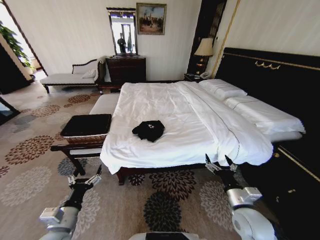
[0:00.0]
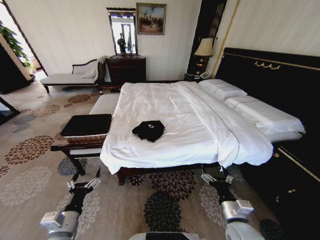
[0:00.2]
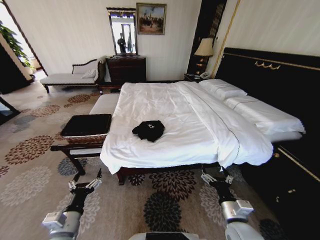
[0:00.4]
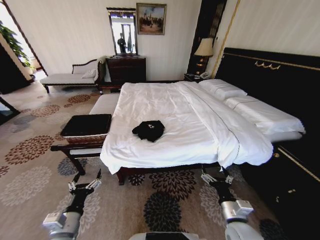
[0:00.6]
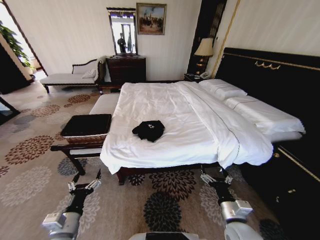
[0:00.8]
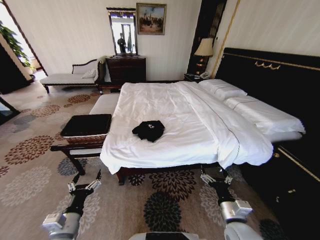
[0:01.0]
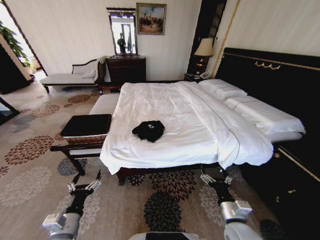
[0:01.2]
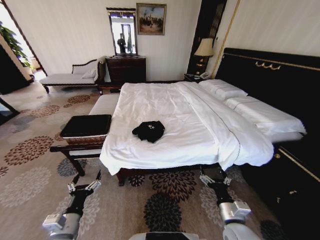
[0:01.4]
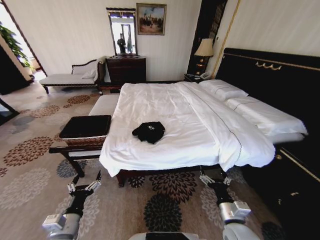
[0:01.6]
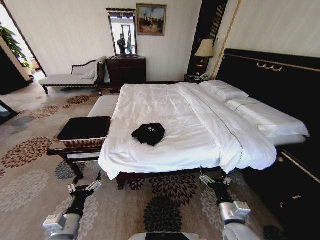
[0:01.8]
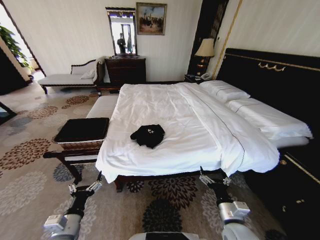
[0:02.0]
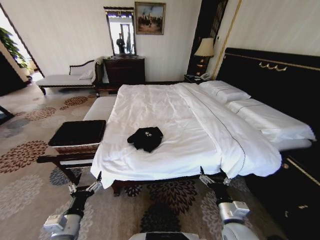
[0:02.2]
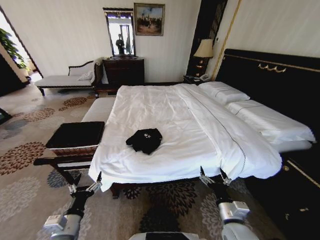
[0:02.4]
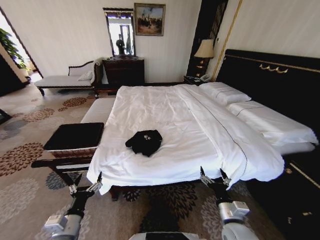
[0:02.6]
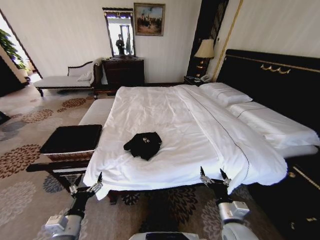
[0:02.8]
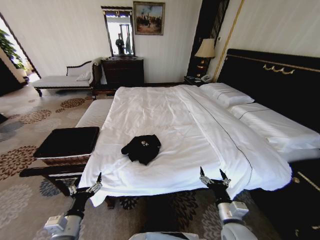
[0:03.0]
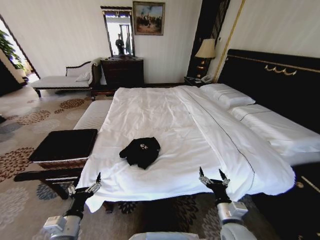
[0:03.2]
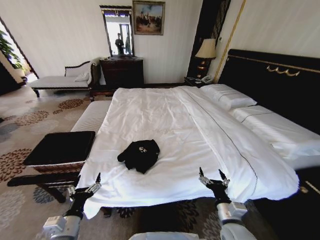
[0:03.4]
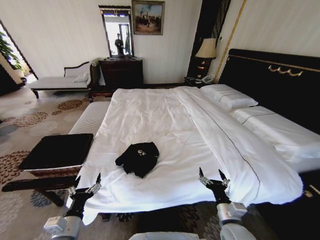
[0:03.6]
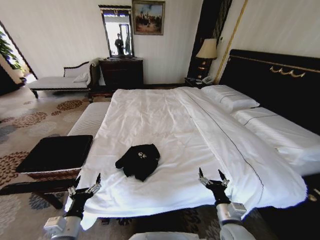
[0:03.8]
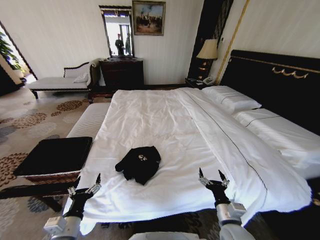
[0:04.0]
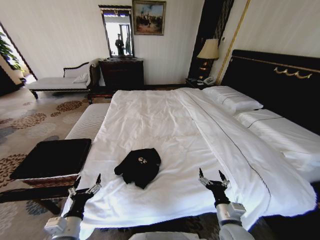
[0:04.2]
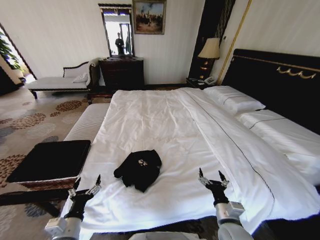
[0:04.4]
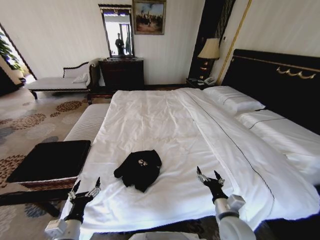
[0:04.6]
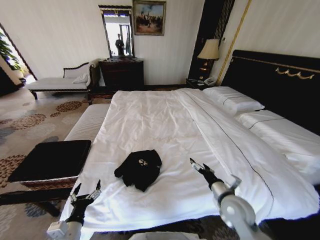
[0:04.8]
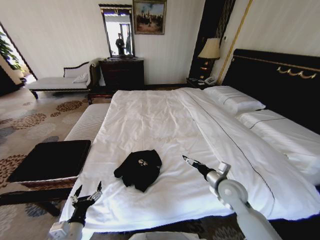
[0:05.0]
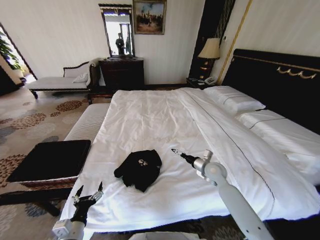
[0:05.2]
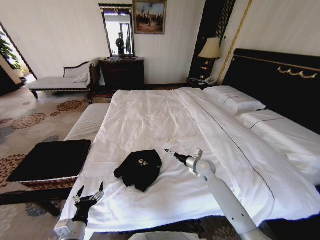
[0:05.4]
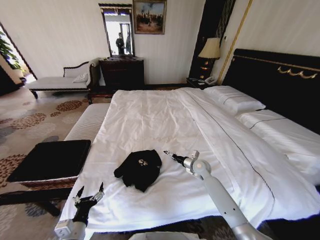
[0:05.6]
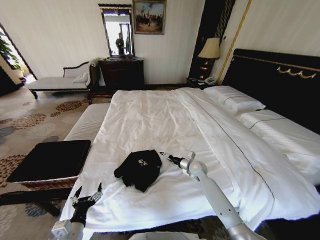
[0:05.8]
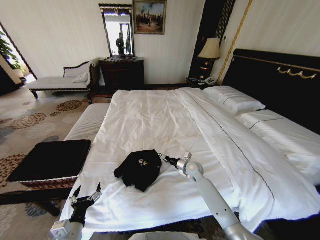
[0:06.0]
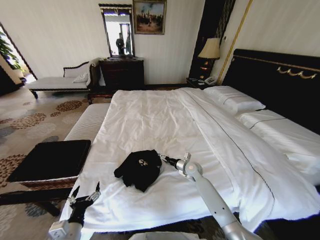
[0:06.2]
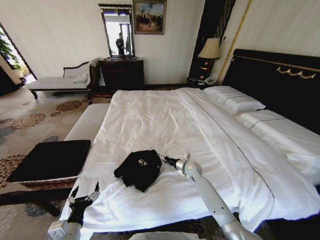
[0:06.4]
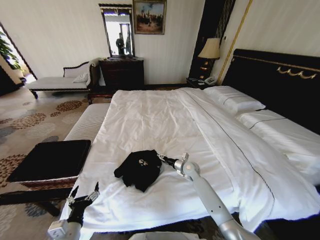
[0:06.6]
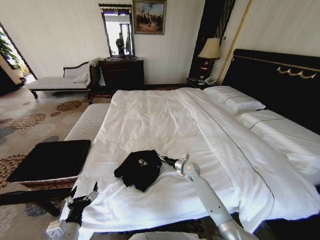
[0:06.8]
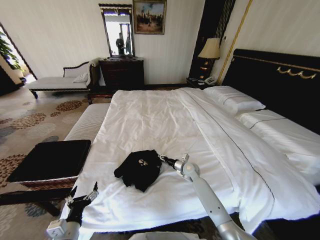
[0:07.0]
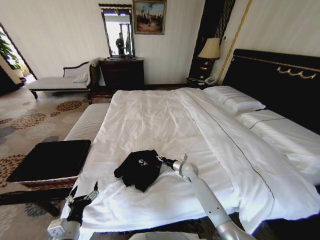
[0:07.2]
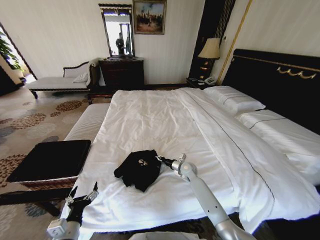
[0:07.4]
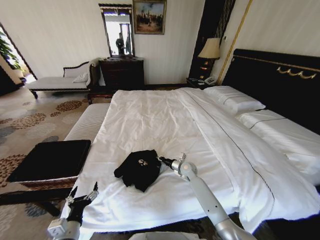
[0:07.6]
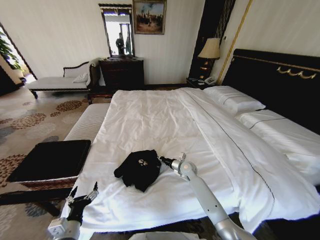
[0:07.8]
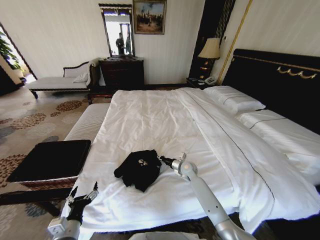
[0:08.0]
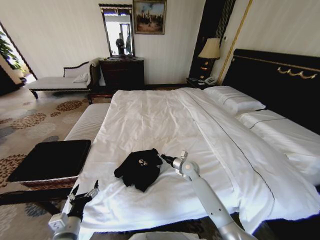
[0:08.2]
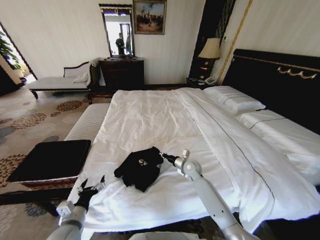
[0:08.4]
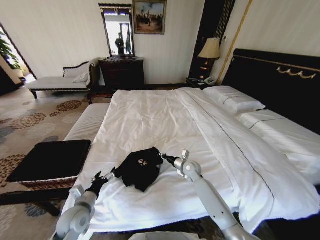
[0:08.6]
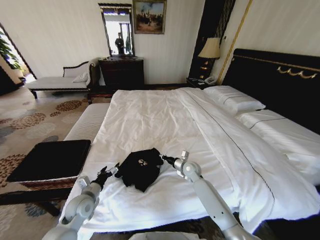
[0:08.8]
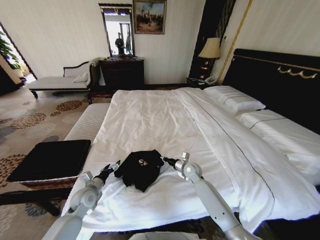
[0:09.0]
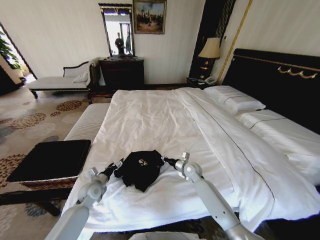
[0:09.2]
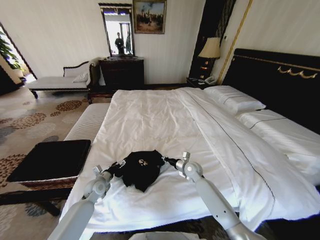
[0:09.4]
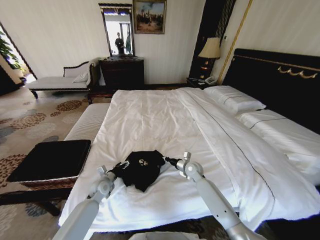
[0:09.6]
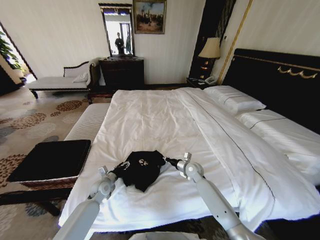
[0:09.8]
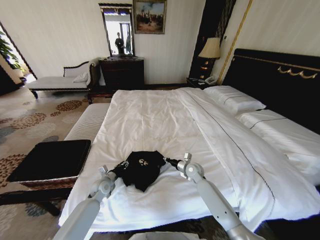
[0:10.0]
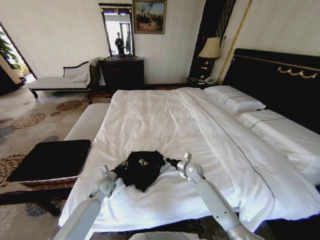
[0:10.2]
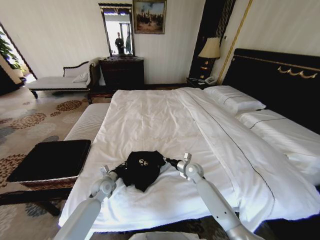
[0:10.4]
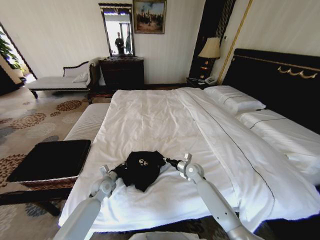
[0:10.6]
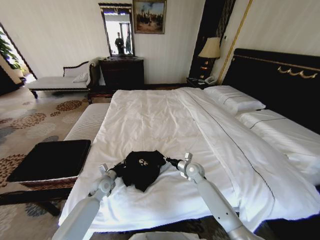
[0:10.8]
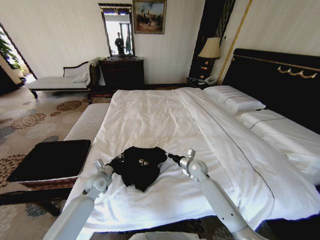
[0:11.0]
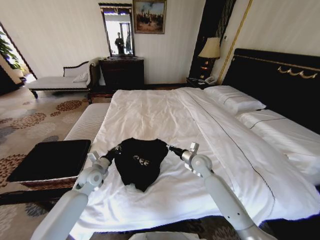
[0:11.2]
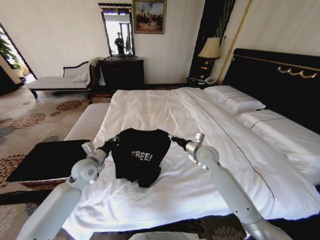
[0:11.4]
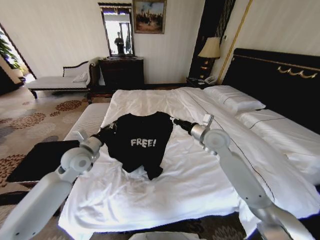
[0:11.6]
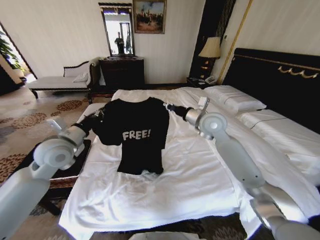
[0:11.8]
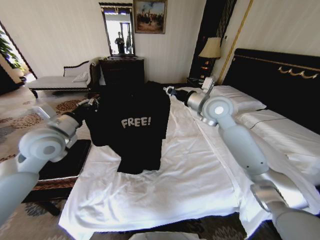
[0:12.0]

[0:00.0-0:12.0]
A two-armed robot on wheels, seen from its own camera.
Task of the whole recording: Fold the clothes on the bed and place them into the basket.
0:04.4 to 0:06.0: The right gripper moves forward, roughly 30 cm.
0:06.0 to 0:07.6: The right gripper closes up.
0:07.6 to 0:09.0: The left gripper moves forward, approximately 20 cm.
0:09.0 to 0:10.4: The left gripper moves forward and downward, approximately 10 cm, and closes.
0:10.4 to 0:12.0: The grippers both shift upward by approximately 35 cm.

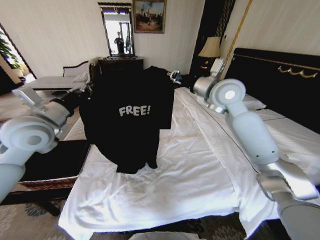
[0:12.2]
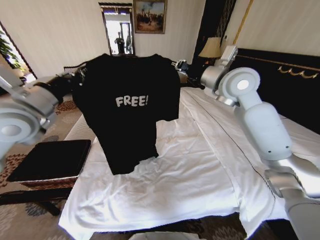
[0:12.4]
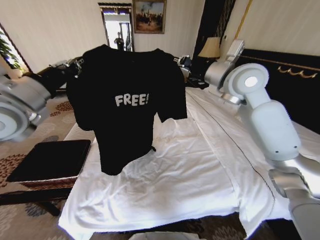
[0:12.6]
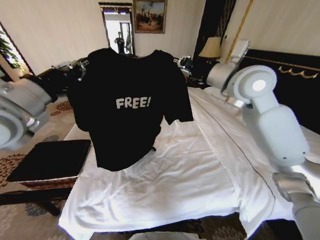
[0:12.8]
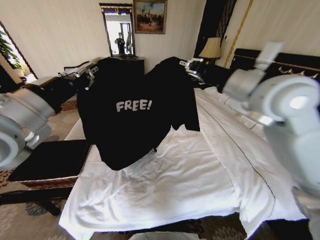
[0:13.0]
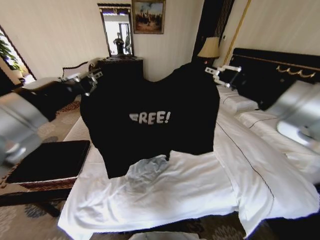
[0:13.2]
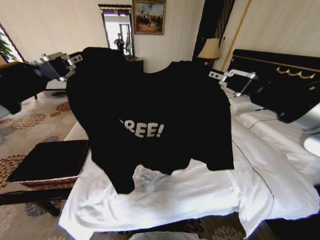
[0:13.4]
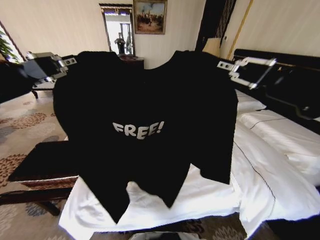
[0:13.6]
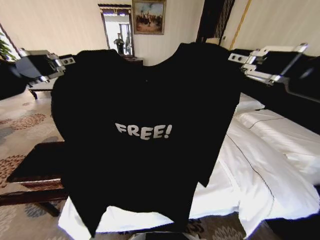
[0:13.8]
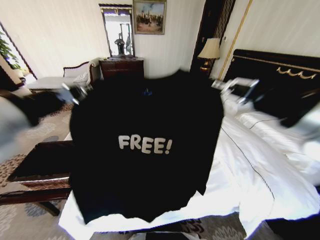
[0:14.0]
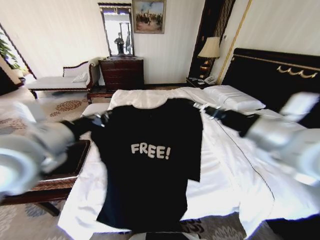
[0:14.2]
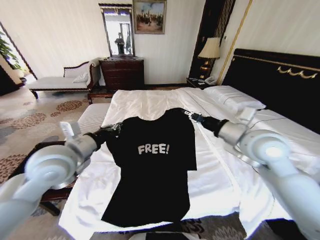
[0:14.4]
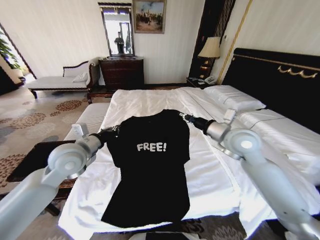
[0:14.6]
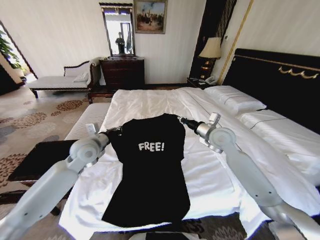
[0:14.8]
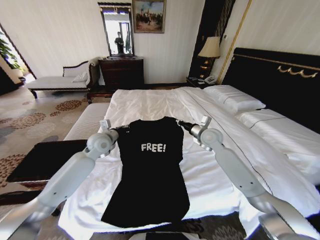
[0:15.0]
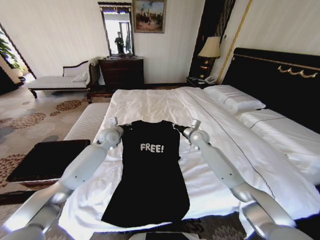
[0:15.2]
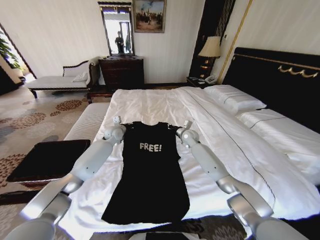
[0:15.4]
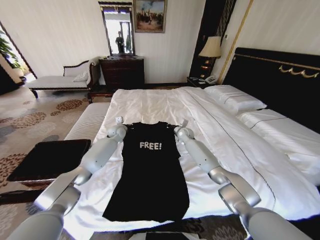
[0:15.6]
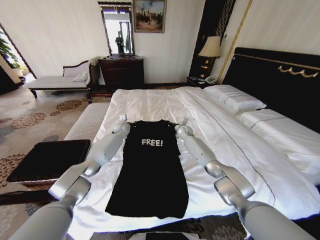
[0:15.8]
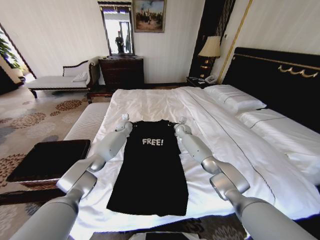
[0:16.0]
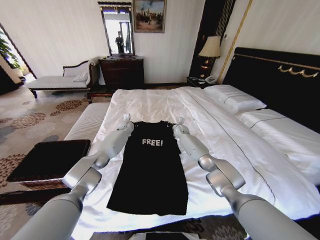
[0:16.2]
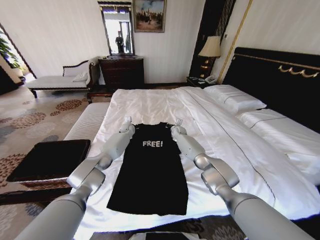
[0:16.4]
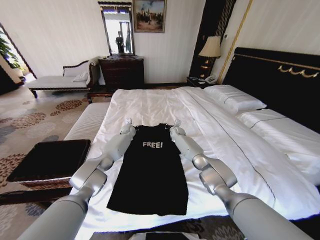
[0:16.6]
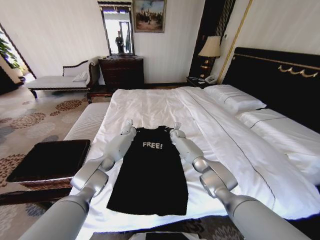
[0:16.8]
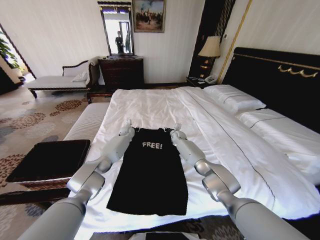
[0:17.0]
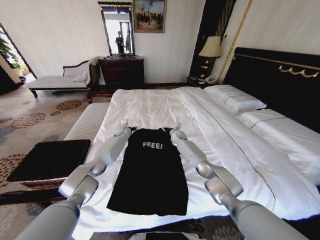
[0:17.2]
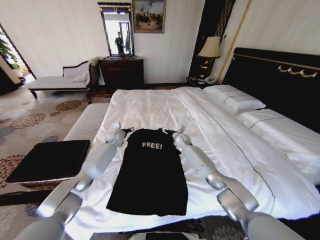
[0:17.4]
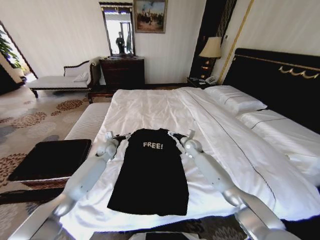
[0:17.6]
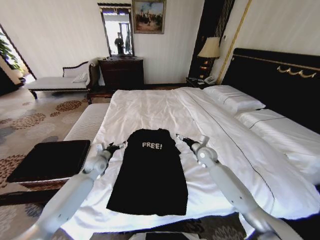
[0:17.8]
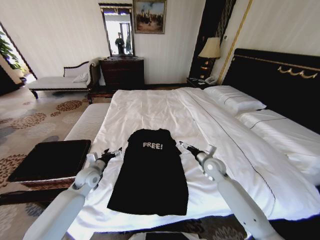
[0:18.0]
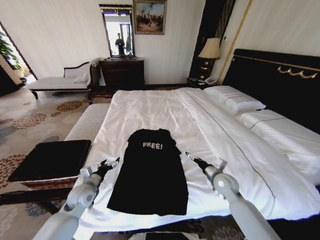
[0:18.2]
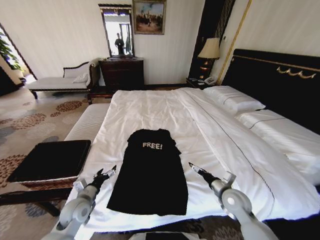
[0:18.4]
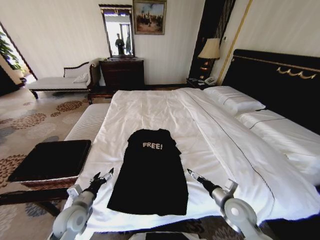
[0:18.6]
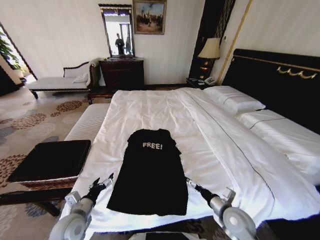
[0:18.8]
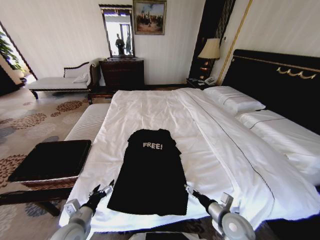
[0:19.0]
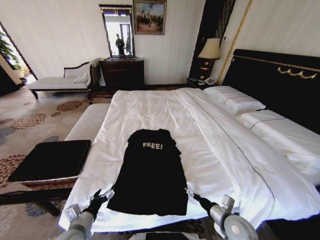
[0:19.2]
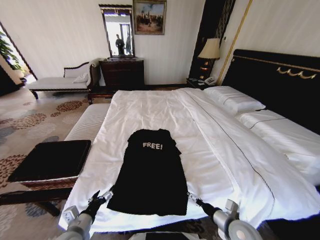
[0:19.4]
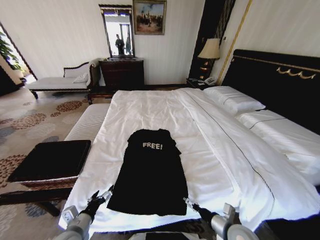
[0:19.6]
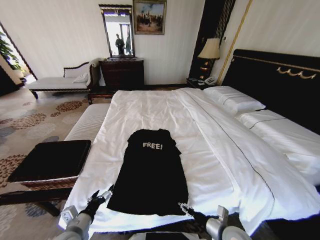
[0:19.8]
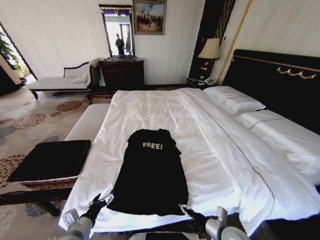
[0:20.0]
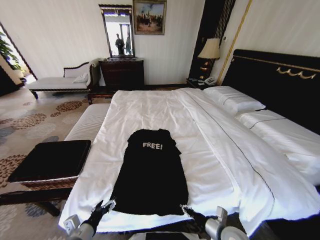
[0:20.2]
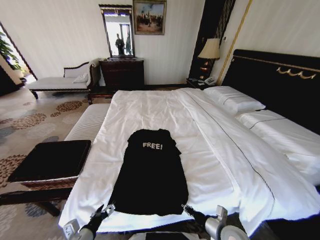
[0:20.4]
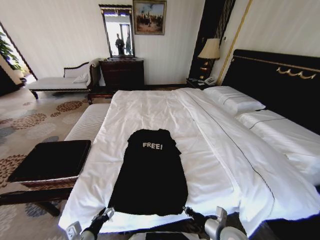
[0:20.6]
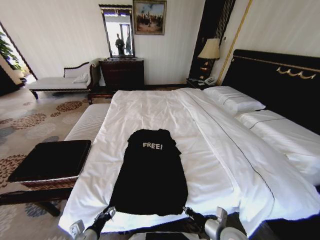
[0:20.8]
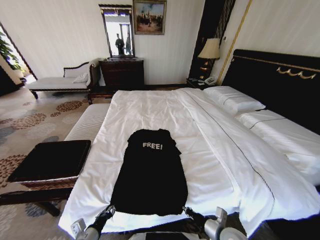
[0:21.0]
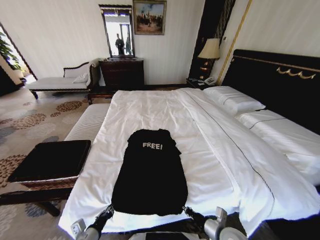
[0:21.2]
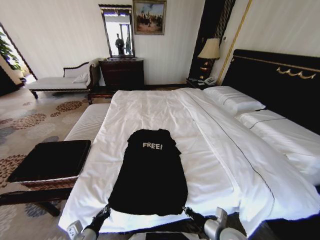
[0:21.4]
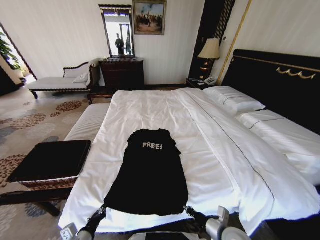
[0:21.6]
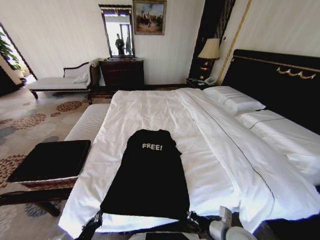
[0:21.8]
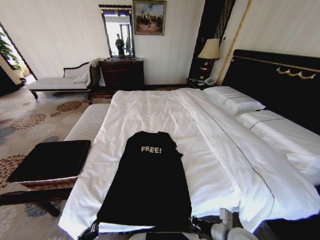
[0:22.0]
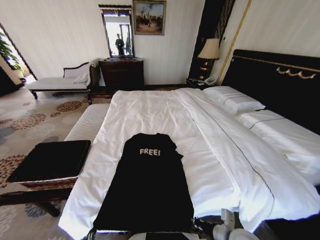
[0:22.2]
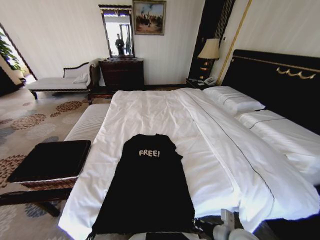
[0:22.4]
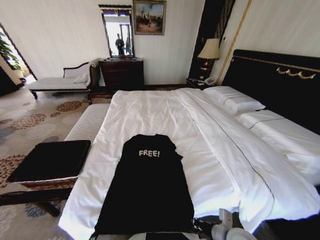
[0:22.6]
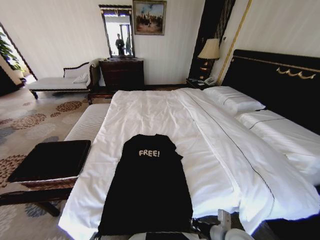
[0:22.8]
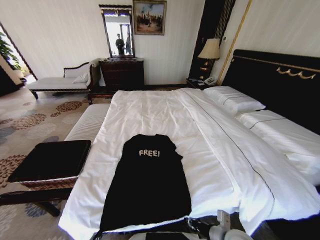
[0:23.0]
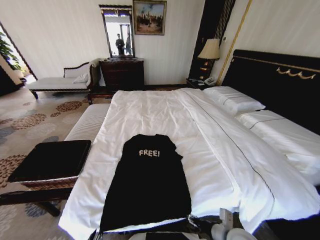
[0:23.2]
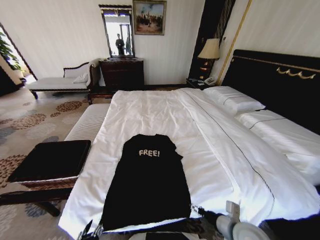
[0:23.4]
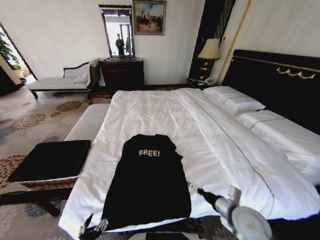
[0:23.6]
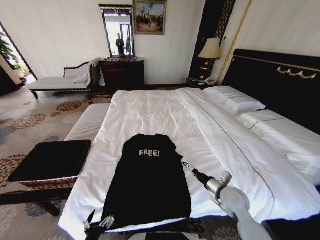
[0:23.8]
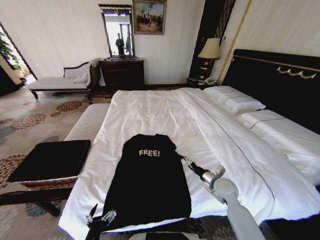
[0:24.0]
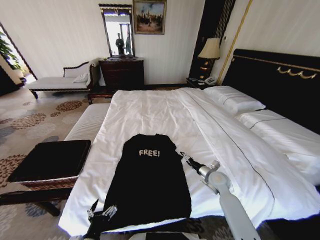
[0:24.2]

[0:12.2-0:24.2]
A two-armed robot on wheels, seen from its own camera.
Task of the whole recording: Fold the clothes on the bed and place them into the basket.
0:12.2 to 0:13.8: The left gripper travels backward and upward by some 25 cm, while the right gripper moves backward, roughly 30 cm.
0:13.8 to 0:15.2: Both grippers move forward and downward, roughly 50 cm.
0:15.2 to 0:16.6: The left gripper goes approximately 20 cm forward and downward. Meanwhile the right gripper is displaced forward, downward and to the left by some 20 cm.
0:16.6 to 0:18.2: The right gripper is displaced backward and to the right by roughly 35 cm, and opens, while the left gripper goes some 40 cm backward, and opens.
0:18.2 to 0:19.8: The grippers both shift backward by about 15 cm.
0:19.8 to 0:21.2: The right gripper closes up. The left gripper moves some 5 cm, and closes up.
0:21.2 to 0:22.6: The left gripper heads backward, covering approximately 10 cm.
0:22.6 to 0:24.2: The right gripper is displaced forward by about 20 cm, and opens up. Meanwhile the left gripper is displaced forward by roughly 5 cm, and opens up.
